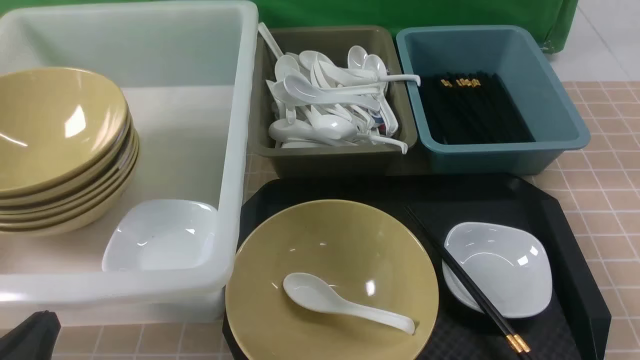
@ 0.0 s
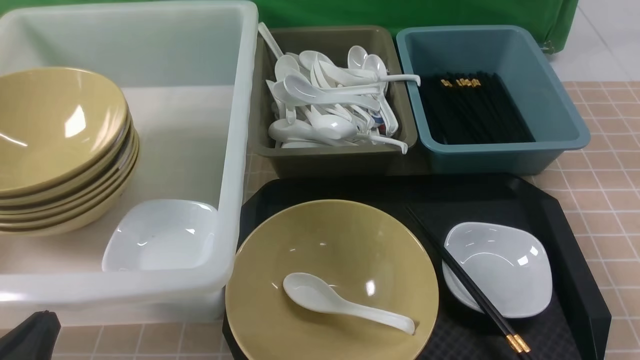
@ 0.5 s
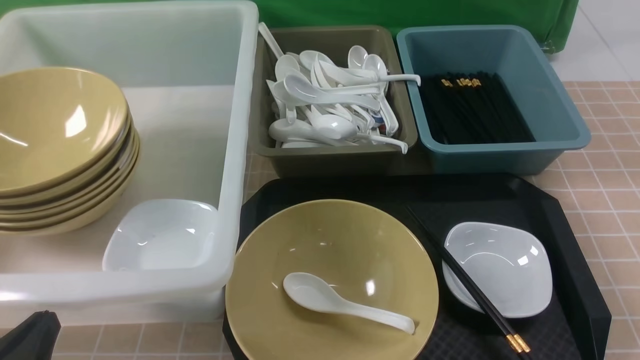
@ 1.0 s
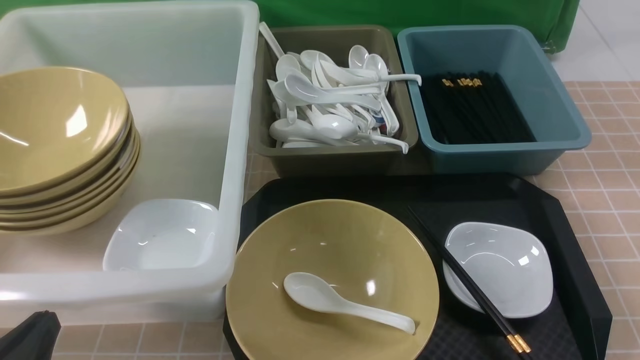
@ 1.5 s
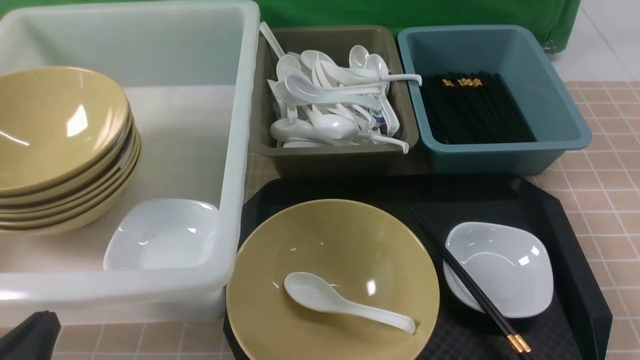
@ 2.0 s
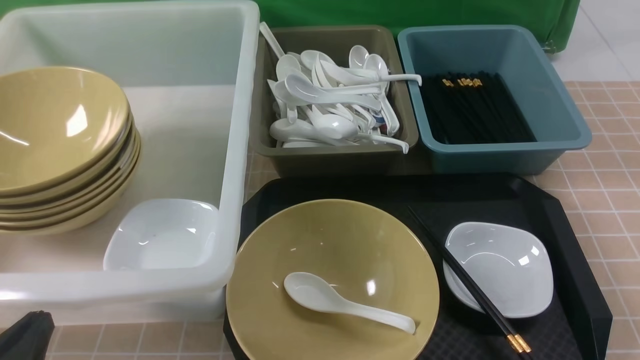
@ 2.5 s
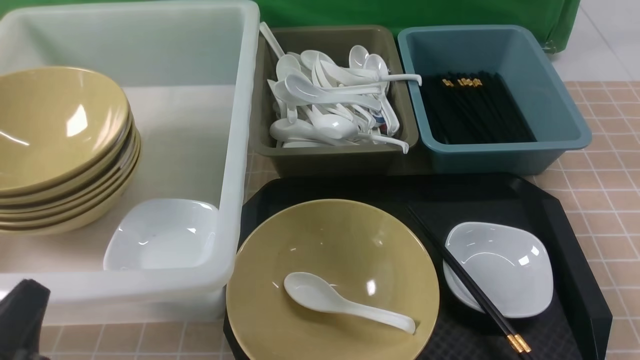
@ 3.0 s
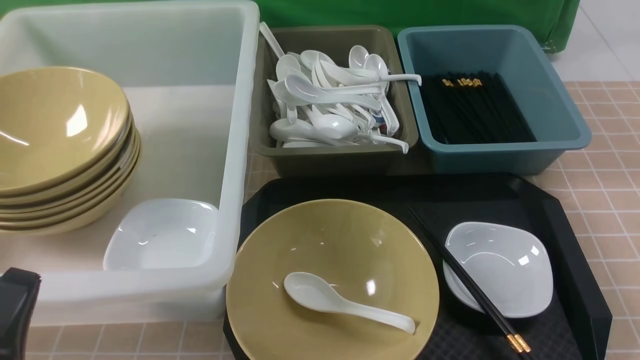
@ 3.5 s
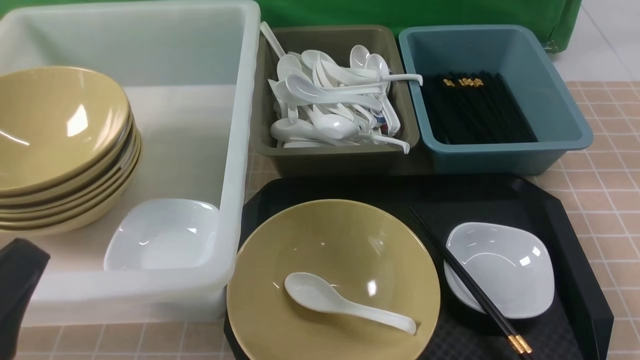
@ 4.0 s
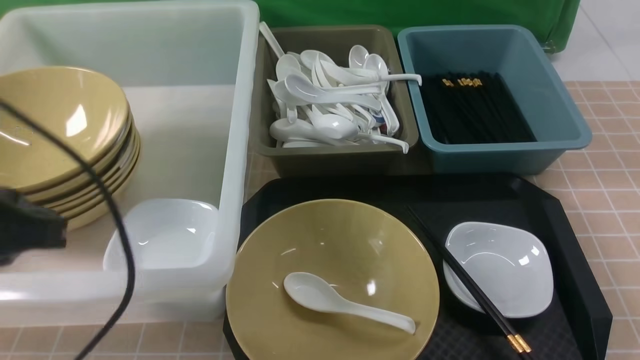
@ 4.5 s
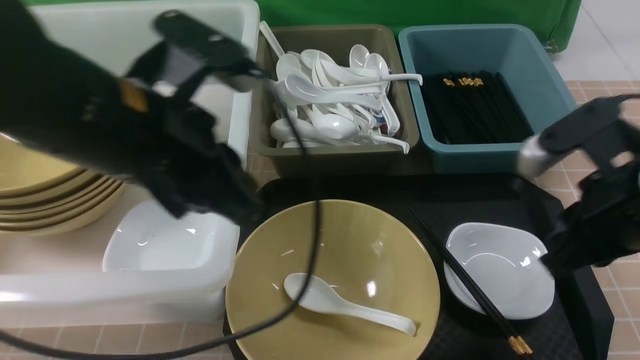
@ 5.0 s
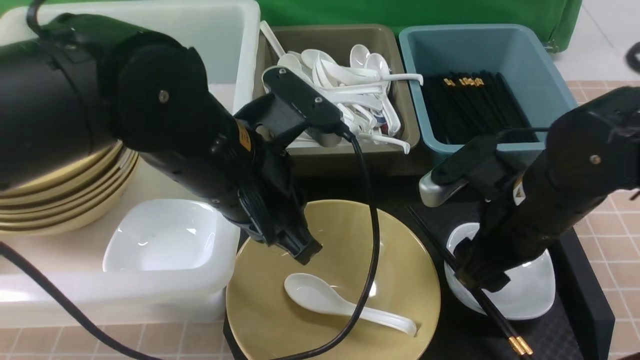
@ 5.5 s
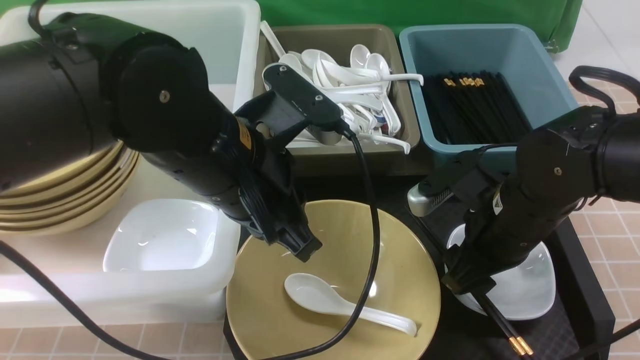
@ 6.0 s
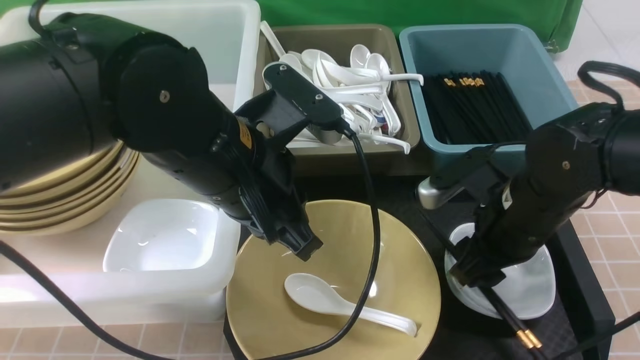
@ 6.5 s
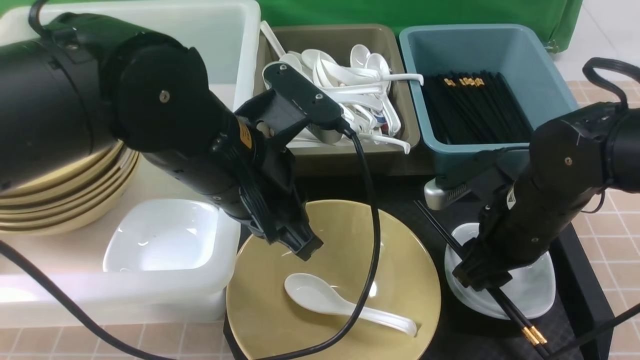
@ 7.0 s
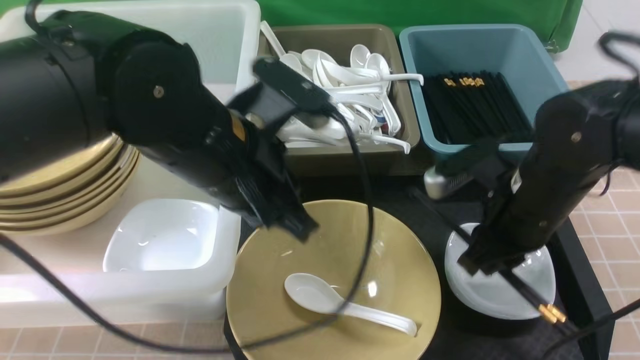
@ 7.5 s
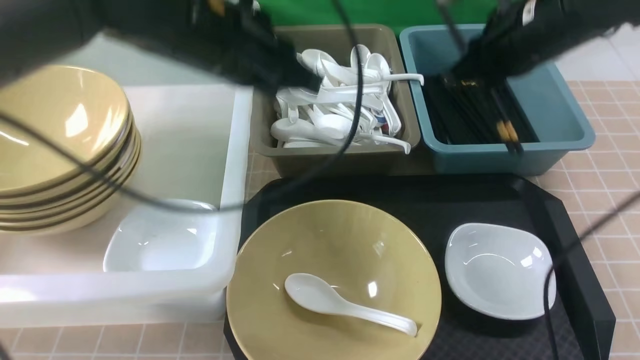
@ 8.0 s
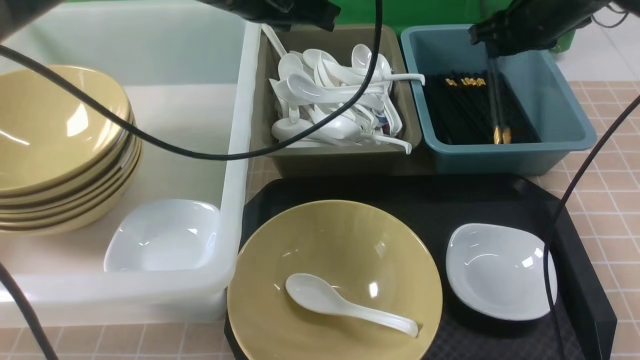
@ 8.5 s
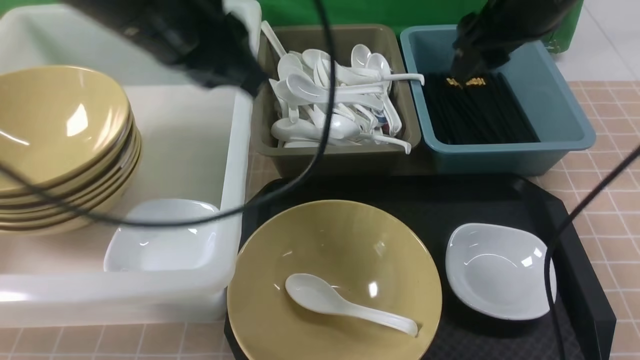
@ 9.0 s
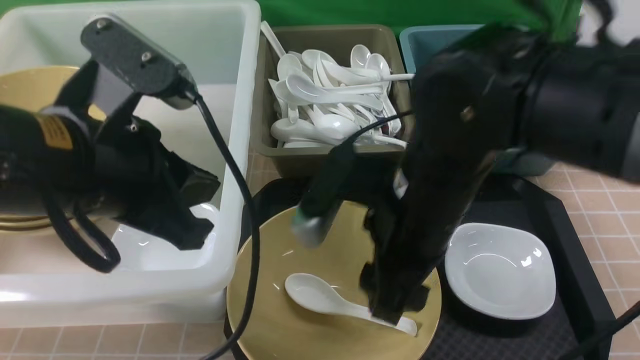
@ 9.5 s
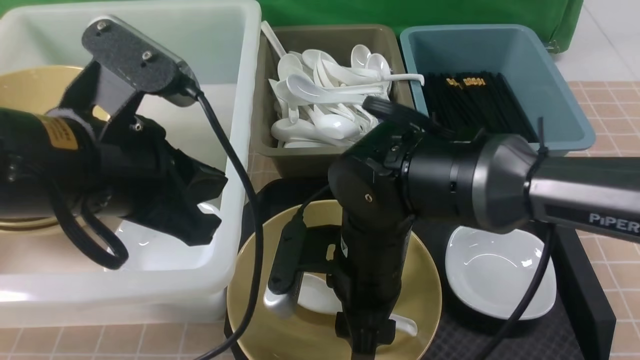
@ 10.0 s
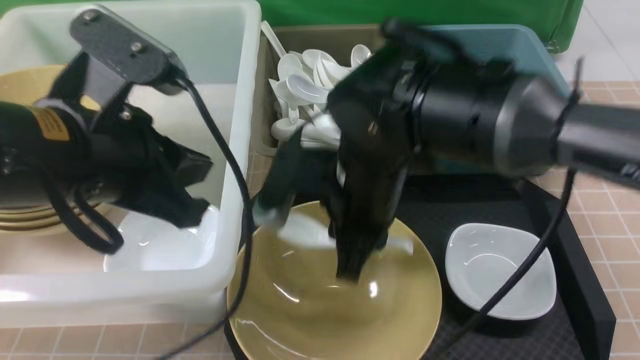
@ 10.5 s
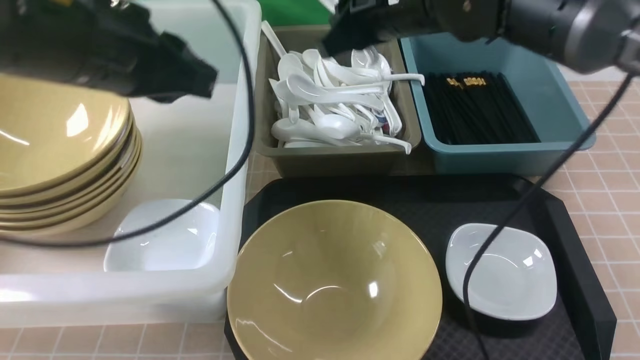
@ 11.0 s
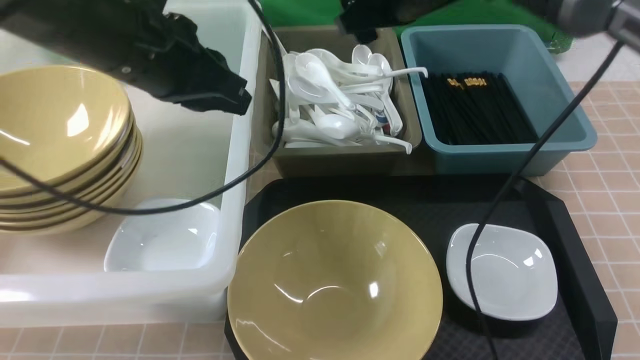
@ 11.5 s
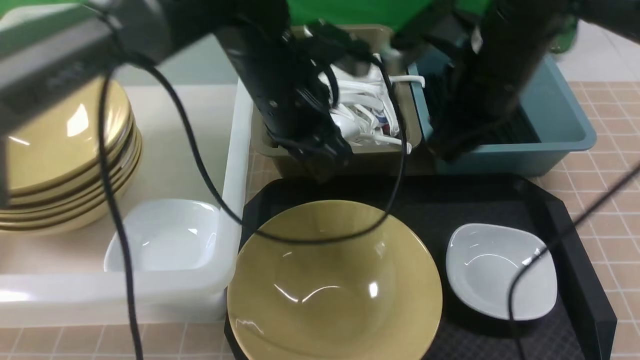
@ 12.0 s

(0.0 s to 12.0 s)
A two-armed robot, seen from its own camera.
Task of the whole recording: on brown table put chopsticks spoon bowls plates into blue grey white boxes.
Step, 0.0 s - 7.5 s: use the right arm to grab the chopsticks.
Step, 8.0 s - 8.5 s: use the right arm to put the chopsticks into the small storage box on the right.
Step, 9.0 s - 10.0 s: use the right arm to grab the soup spoon in the middle.
Step, 10.5 s - 11.0 s: use the right arm to put the soup spoon into the small storage box in the middle.
2.0 s - 4.0 s: The left gripper moves upward, some 10 cm.
4.0 s - 6.0 s: The right gripper heads forward and to the left, covering approximately 25 cm, and opens up, while the left gripper is displaced forward and to the right by about 25 cm.
6.0 s - 8.0 s: The right gripper heads forward and upward, covering about 15 cm, and closes. Meanwhile the left gripper shifts about 10 cm forward and upward.
8.0 s - 10.0 s: The right gripper heads to the left, backward and downward, covering roughly 25 cm, and opens its fingers, while the left gripper is displaced backward and to the left by some 15 cm.
10.0 s - 12.0 s: The left gripper travels forward and to the right by roughly 20 cm, and opens up. The right gripper travels to the right, upward and forward by roughly 20 cm, and closes, then reopens.

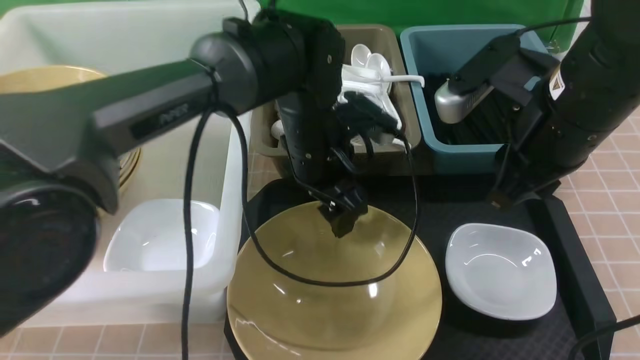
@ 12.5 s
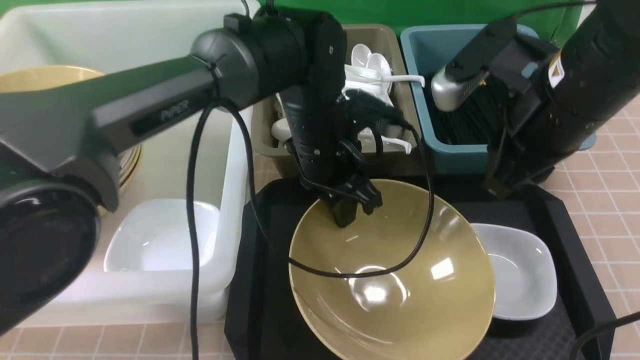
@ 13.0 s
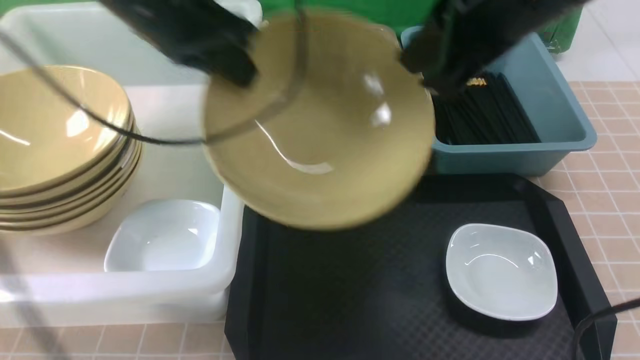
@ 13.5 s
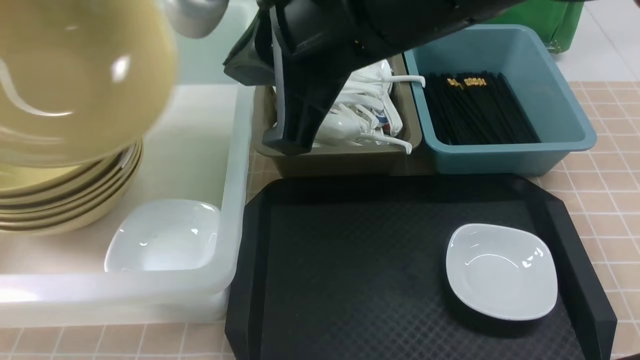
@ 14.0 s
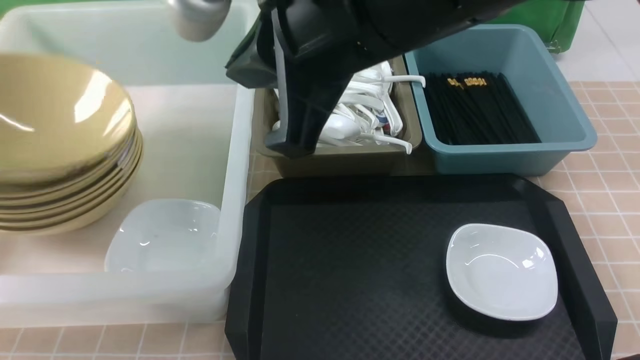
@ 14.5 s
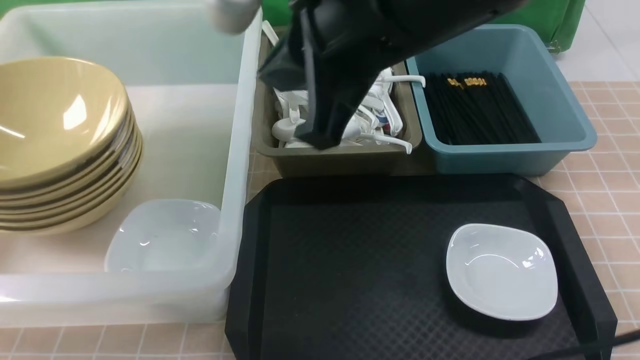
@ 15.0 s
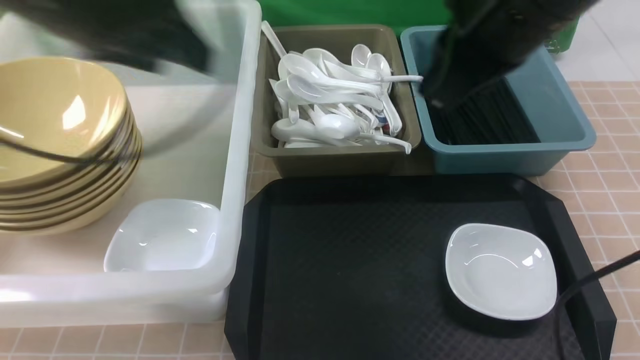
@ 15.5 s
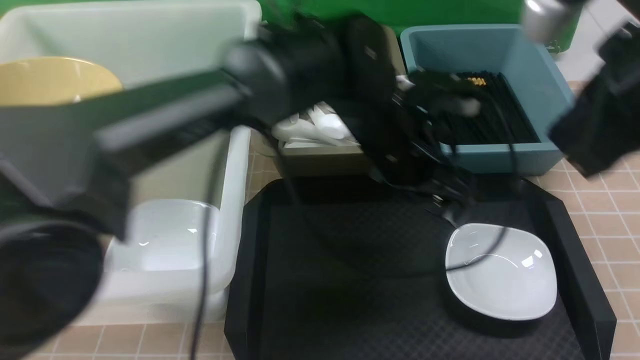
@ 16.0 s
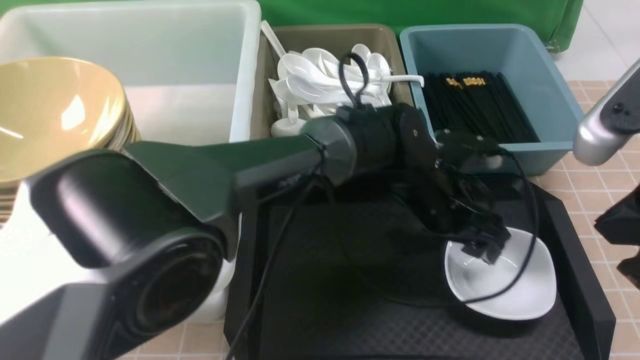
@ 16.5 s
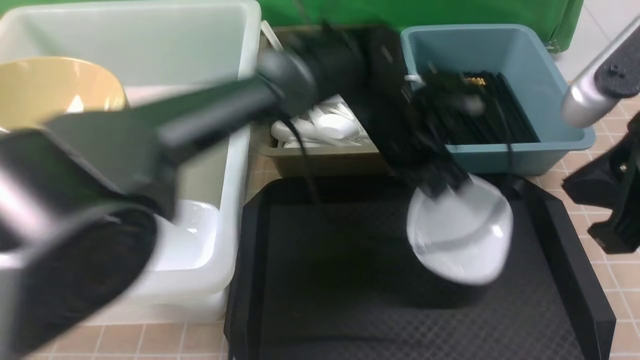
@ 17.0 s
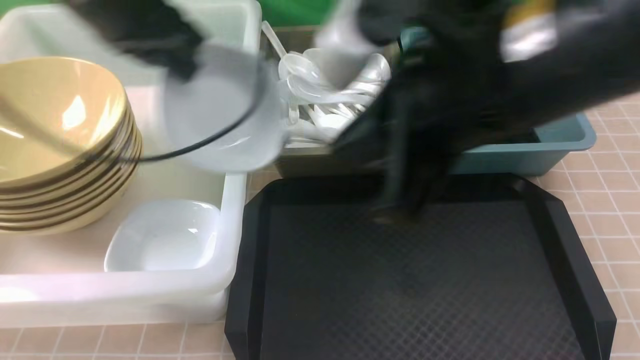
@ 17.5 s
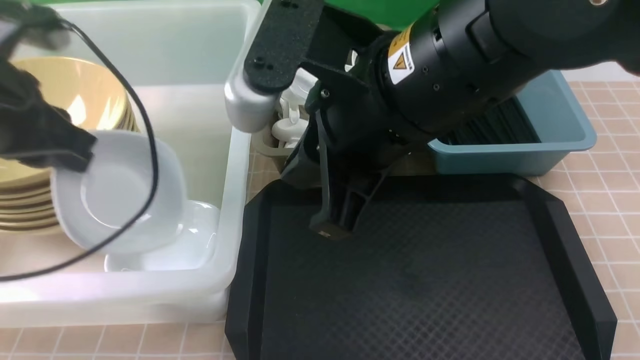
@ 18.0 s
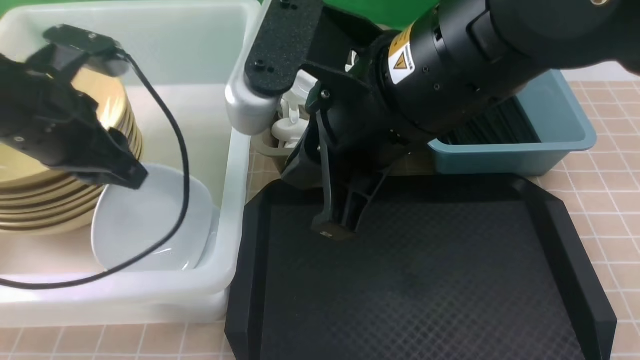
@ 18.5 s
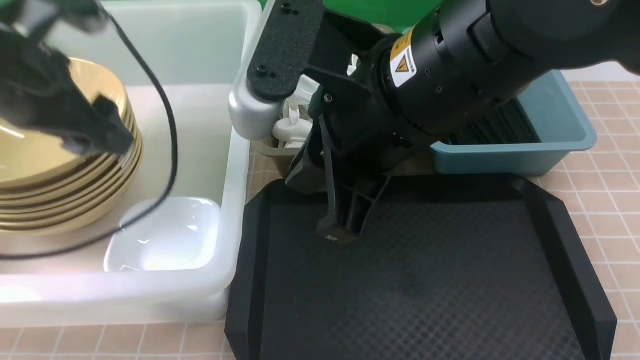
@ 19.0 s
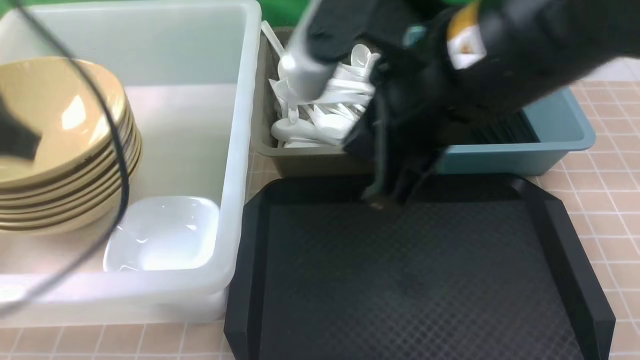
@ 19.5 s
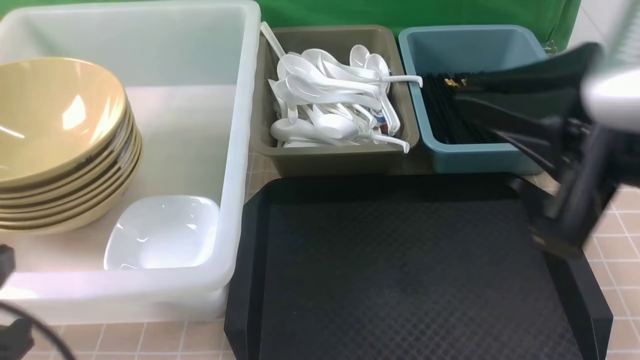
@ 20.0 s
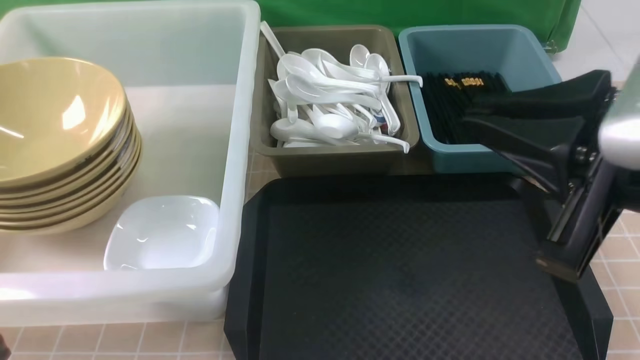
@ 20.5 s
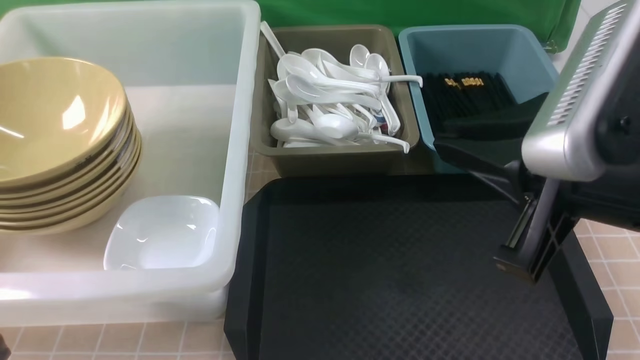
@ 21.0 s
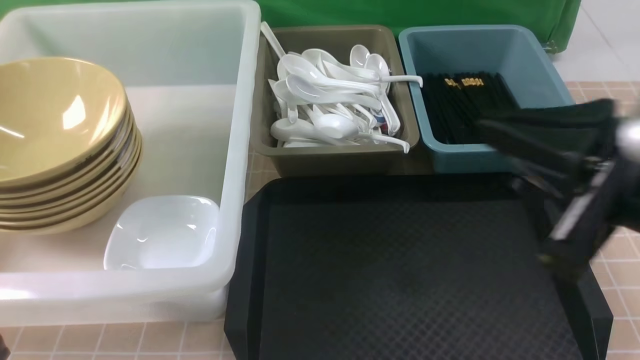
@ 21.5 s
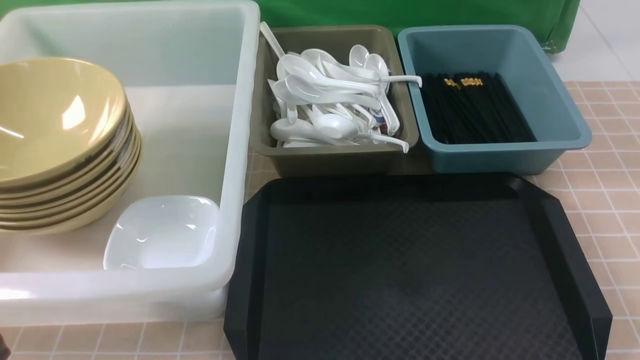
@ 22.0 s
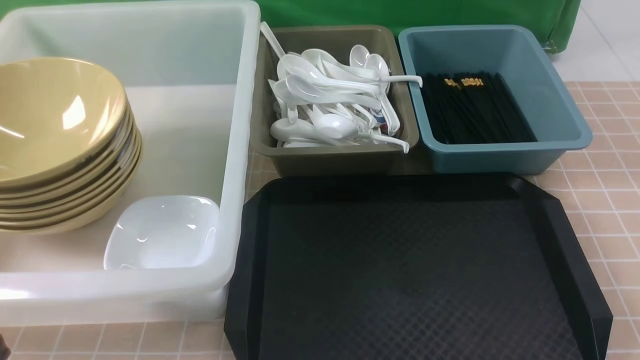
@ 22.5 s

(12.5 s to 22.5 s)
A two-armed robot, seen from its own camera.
Task of the whole recording: on brown table put chopsticks spoon bowls plates into blue grey white boxes.
Step, 13.5 s - 15.0 s: use the left arm to put the noodle bowl into the large storage box on the left.
Step, 15.5 s - 16.5 s: use the left arm to grab the plate.
Step, 17.0 s - 19.0 s: use the left arm to put the plate into the large storage box on the left.
12.5 s - 14.5 s: The right gripper moves to the left and upward, some 20 cm, and closes; the left gripper travels to the left by roughly 40 cm, and closes.
14.5 s - 16.5 s: The left gripper heads to the right, covering approximately 50 cm, and opens its fingers; the right gripper goes some 20 cm to the right.
16.5 s - 18.5 s: The left gripper travels to the left by roughly 35 cm, and closes, then opens again. Meanwhile the right gripper heads to the left, covering approximately 20 cm.
18.5 s - 20.5 s: The right gripper heads to the right and backward, covering roughly 15 cm, while the left gripper is displaced backward by some 25 cm, and closes up.
20.5 s - 22.5 s: The right gripper heads downward, to the right and backward, covering about 25 cm.
